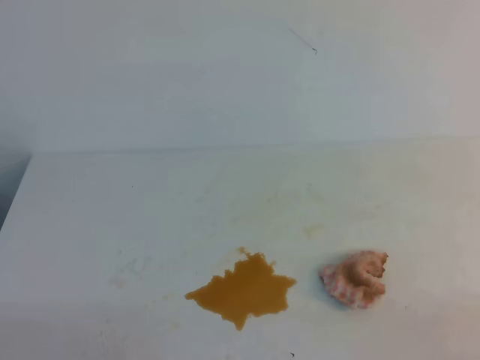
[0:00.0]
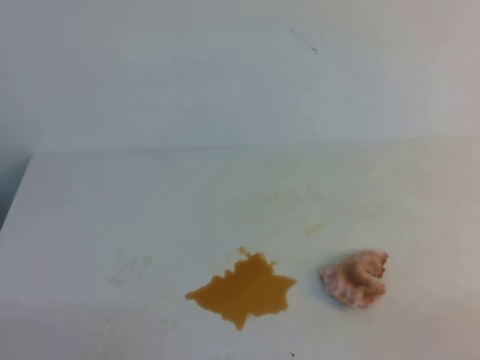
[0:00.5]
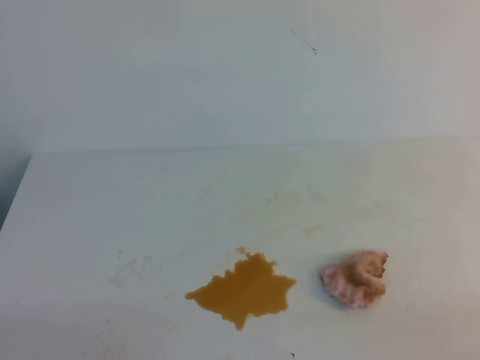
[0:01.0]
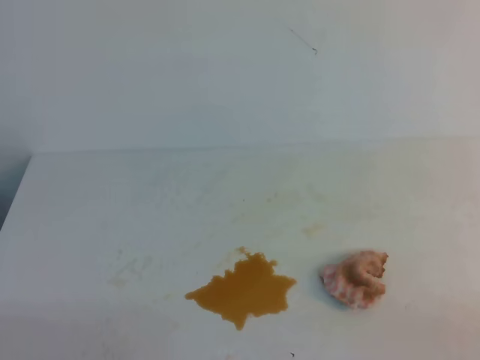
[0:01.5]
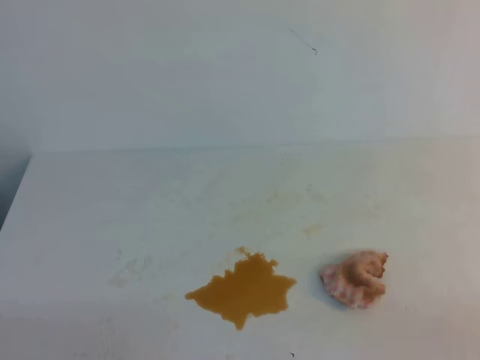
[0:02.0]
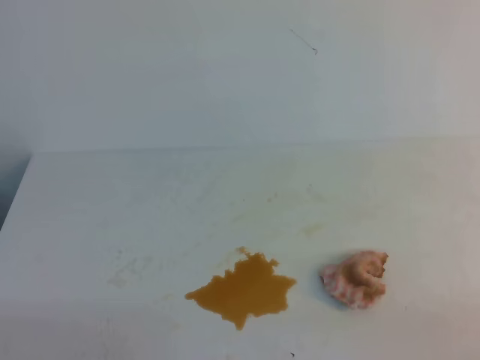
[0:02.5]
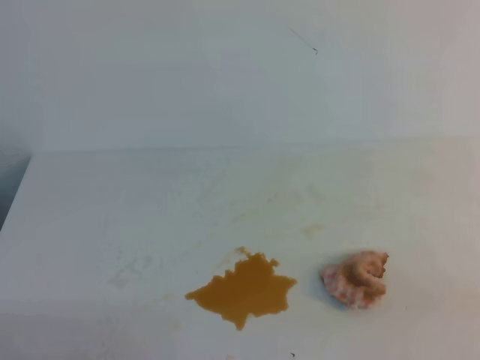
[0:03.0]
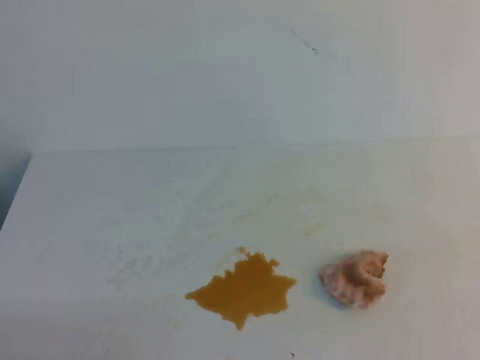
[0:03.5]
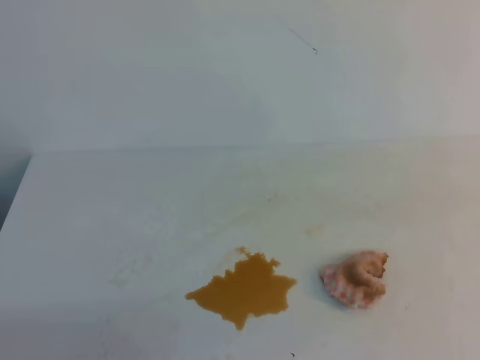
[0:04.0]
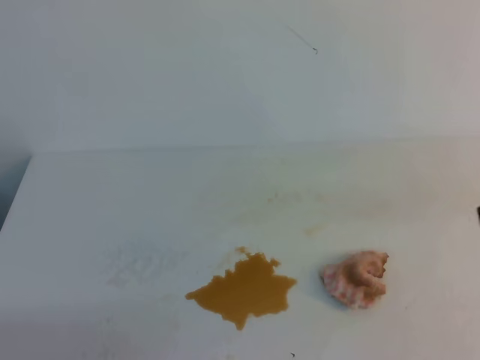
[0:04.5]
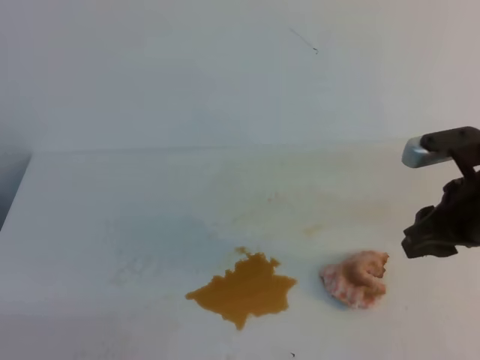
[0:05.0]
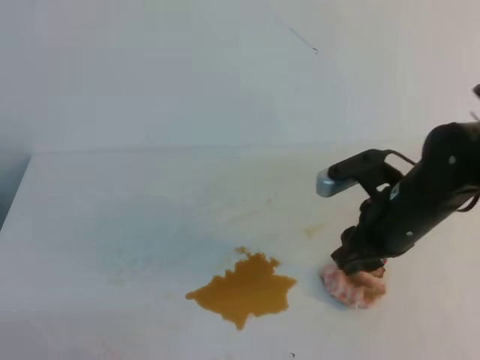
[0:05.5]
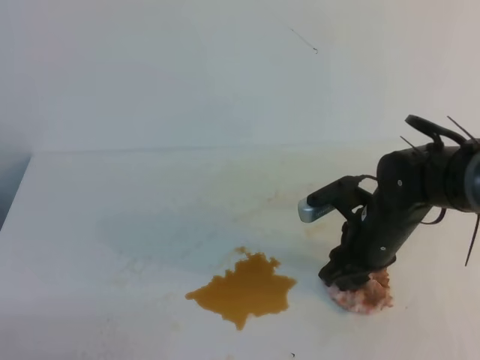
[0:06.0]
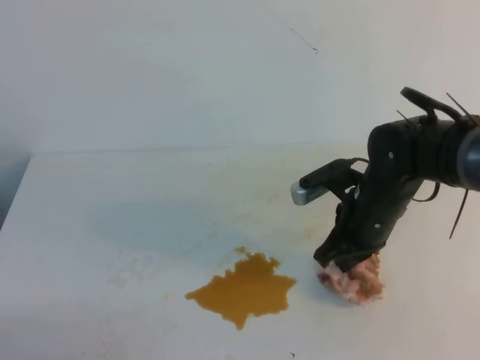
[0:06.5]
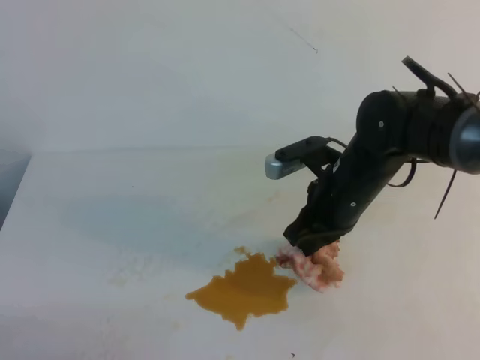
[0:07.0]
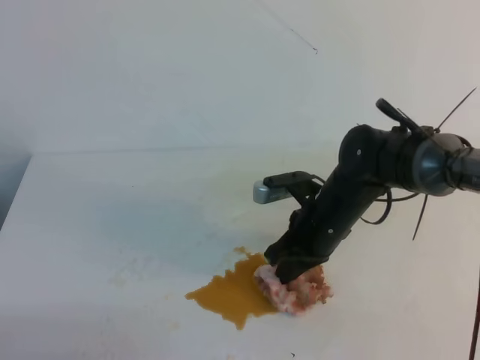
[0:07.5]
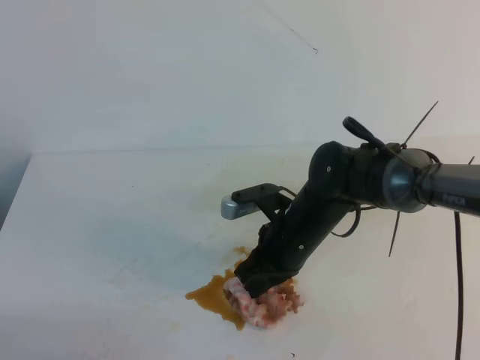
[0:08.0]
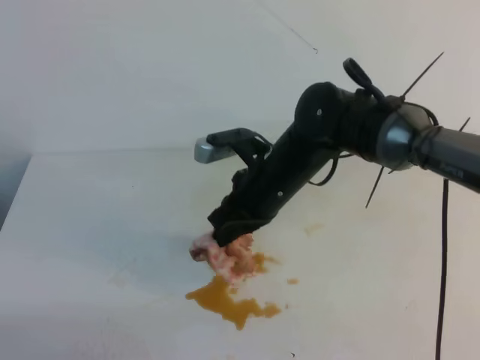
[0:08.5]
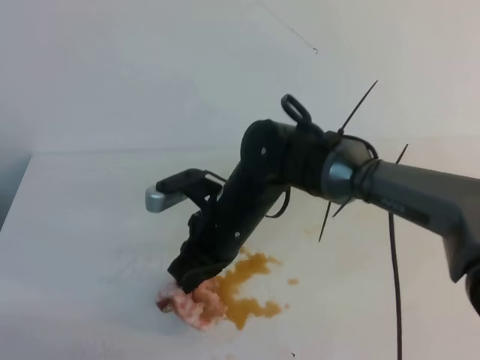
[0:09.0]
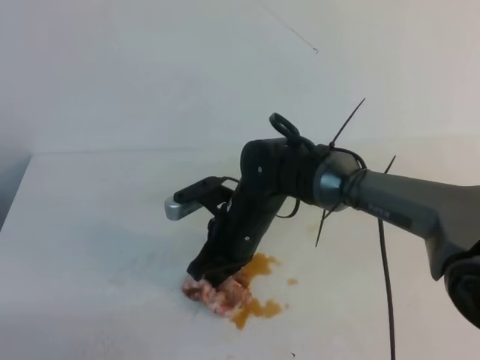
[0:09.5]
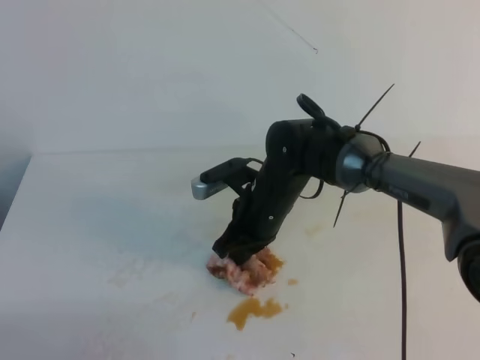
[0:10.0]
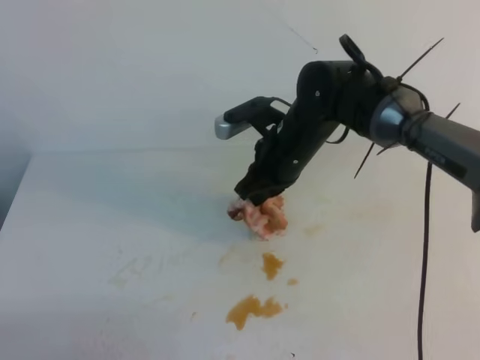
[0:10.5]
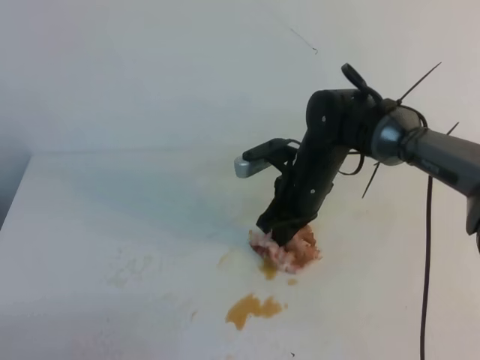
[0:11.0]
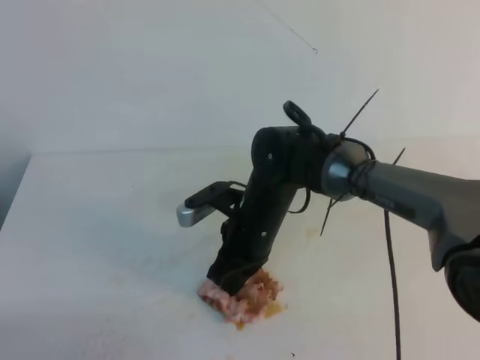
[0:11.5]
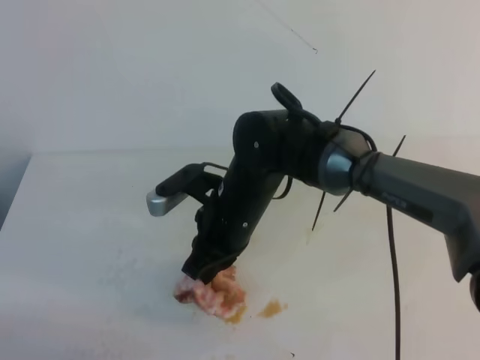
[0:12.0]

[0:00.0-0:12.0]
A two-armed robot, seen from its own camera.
0:04.0 to 0:06.0: The right gripper is displaced forward, downward and to the left by about 30 cm, and opens.
0:06.0 to 0:08.0: The right gripper moves to the left, some 10 cm, and closes.
0:08.0 to 0:10.0: The right gripper moves about 5 cm.
0:10.0 to 0:12.0: The right gripper travels backward by roughly 5 cm.

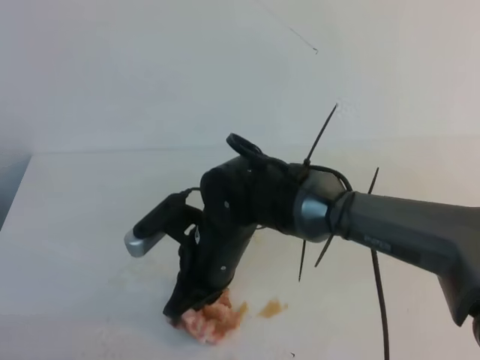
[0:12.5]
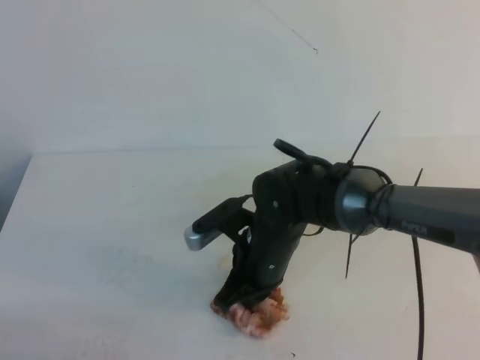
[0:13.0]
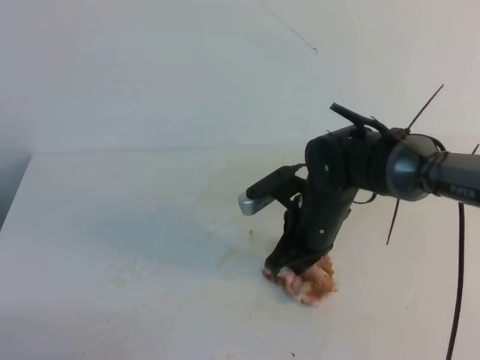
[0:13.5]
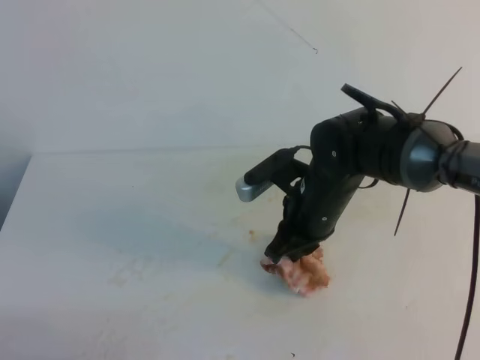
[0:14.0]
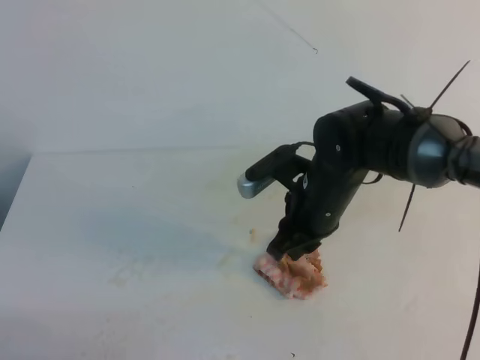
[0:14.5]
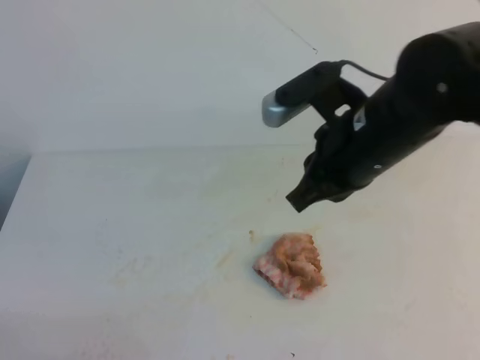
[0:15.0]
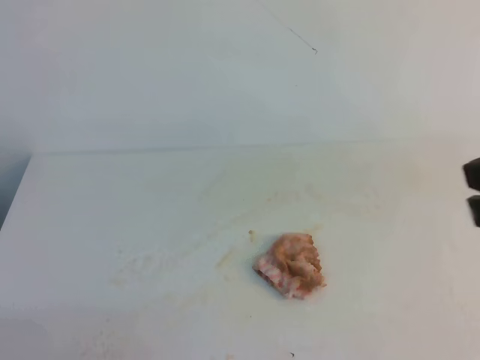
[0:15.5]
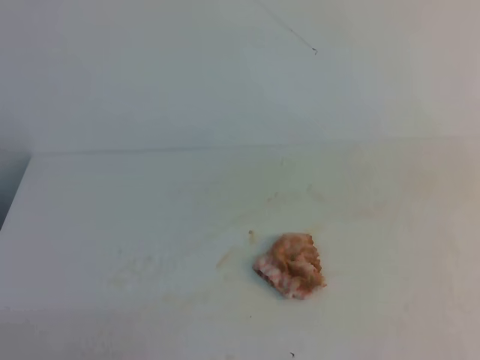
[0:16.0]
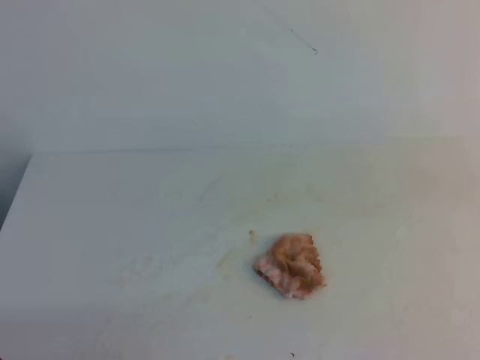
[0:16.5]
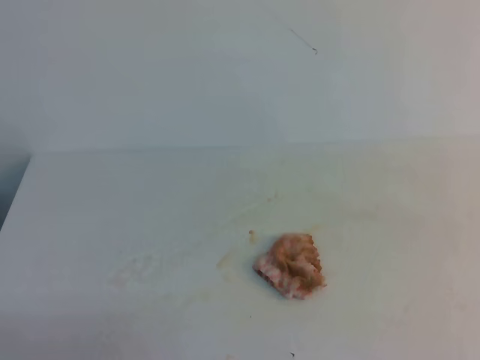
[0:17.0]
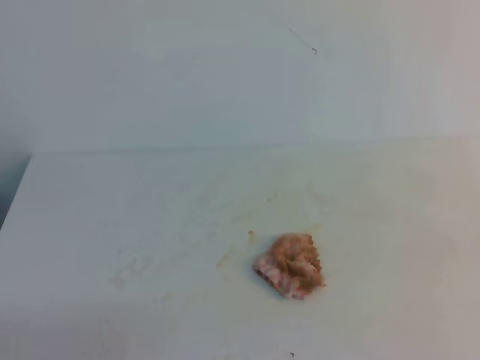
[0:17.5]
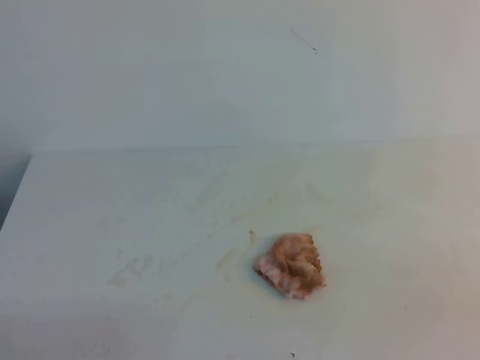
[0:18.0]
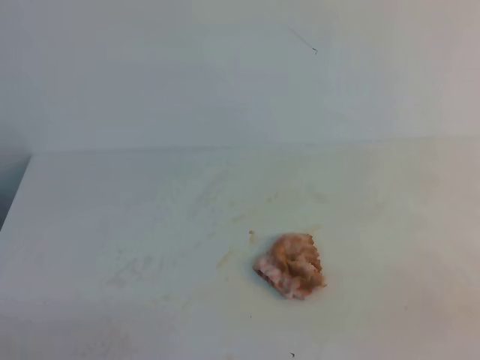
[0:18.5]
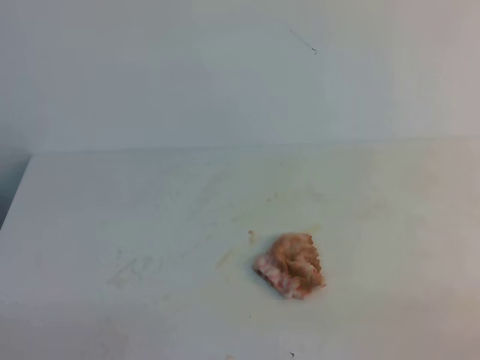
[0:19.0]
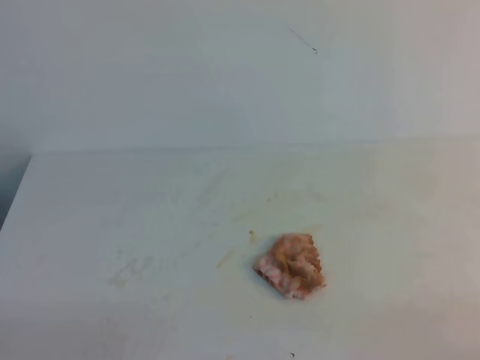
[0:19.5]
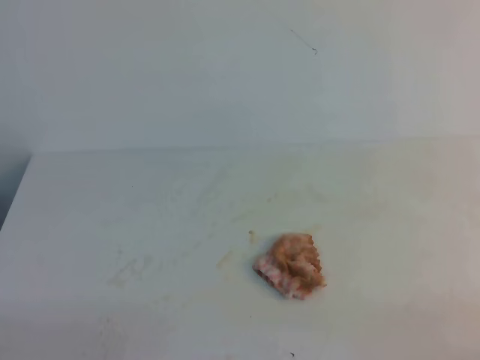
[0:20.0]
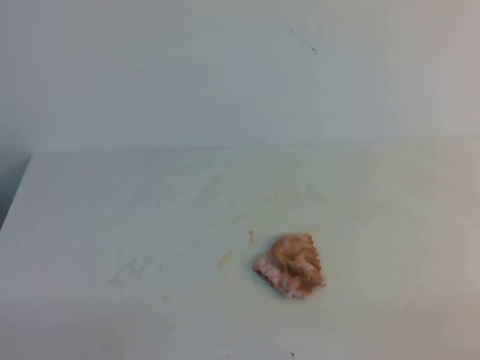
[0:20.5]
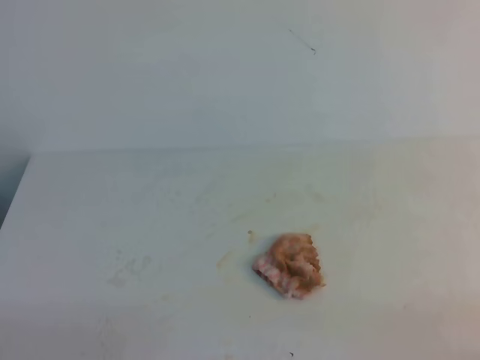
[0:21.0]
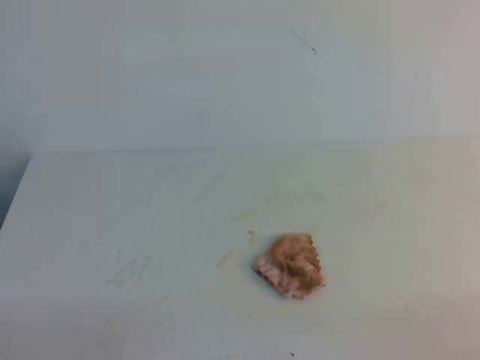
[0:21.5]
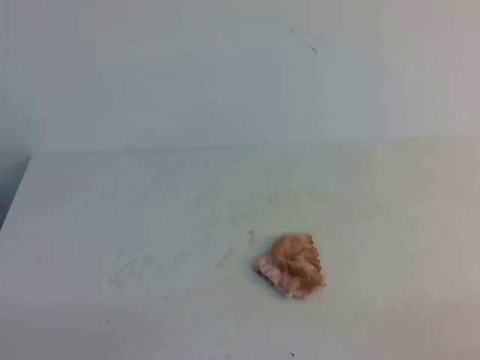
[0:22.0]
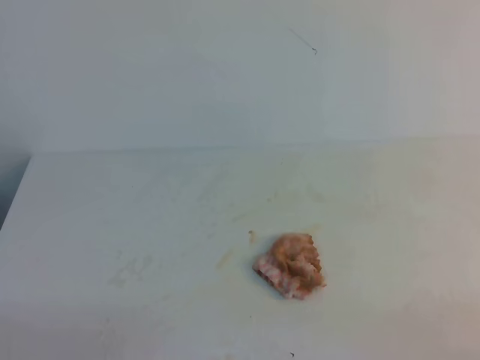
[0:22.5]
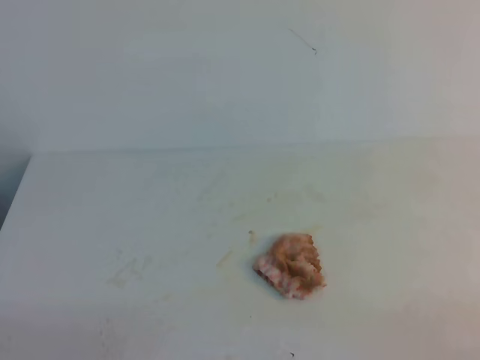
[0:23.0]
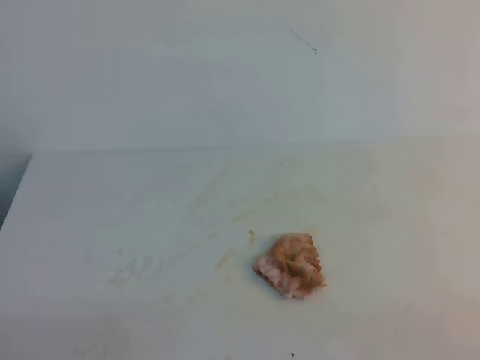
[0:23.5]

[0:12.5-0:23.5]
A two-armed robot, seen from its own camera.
0:12.5 to 0:14.5: The right gripper is displaced to the right by roughly 10 cm, and opens up.
0:14.5 to 0:16.0: The right gripper heads backward, upward and to the right, covering approximately 35 cm, and closes.
0:20.0 to 0:21.5: Both grippers stay put.
0:21.5 to 0:23.5: Both grippers stay put.
